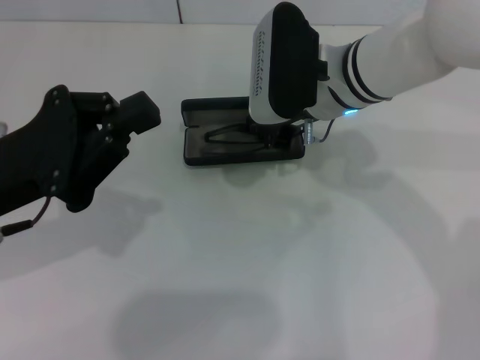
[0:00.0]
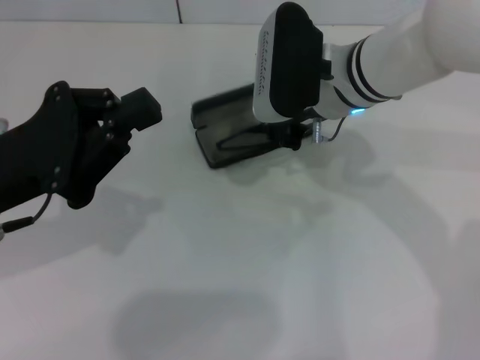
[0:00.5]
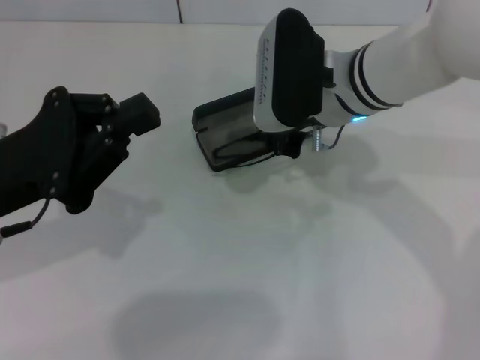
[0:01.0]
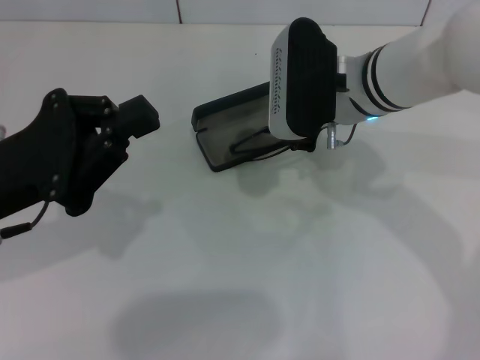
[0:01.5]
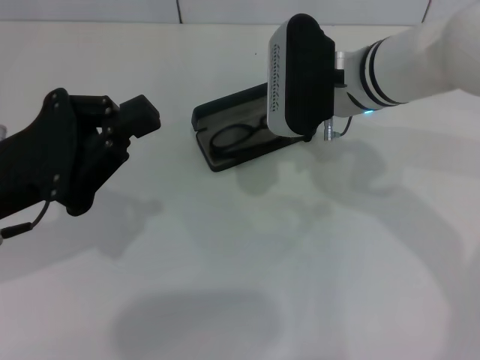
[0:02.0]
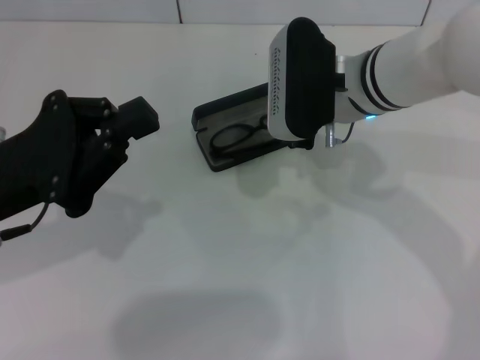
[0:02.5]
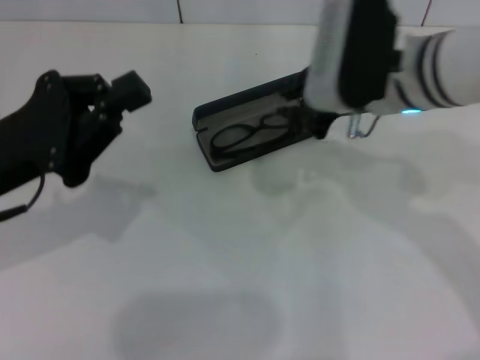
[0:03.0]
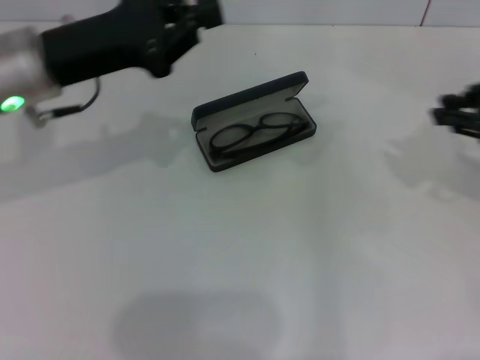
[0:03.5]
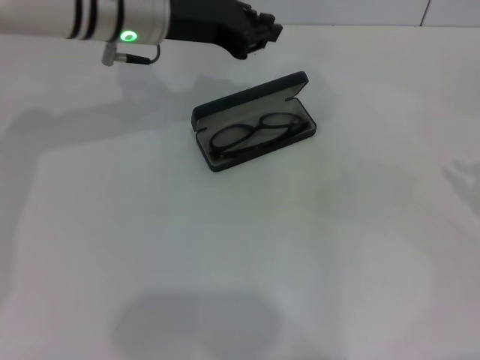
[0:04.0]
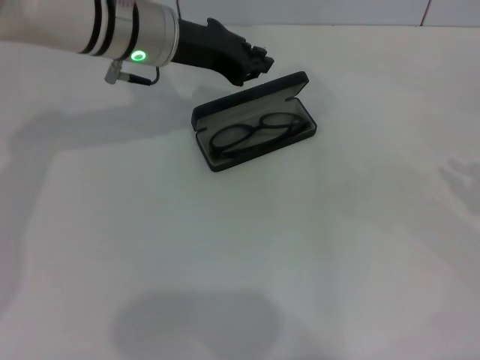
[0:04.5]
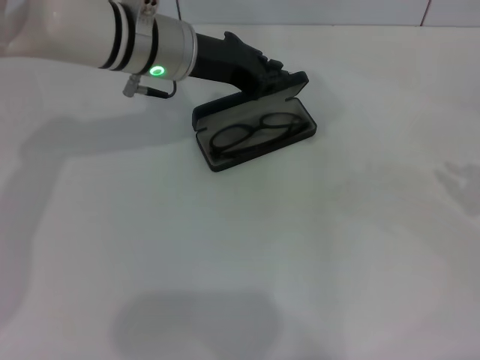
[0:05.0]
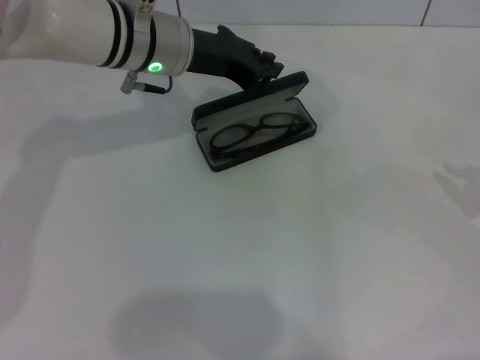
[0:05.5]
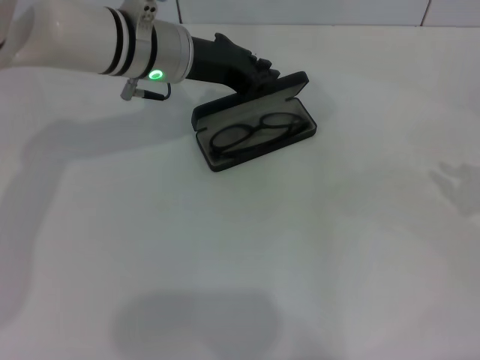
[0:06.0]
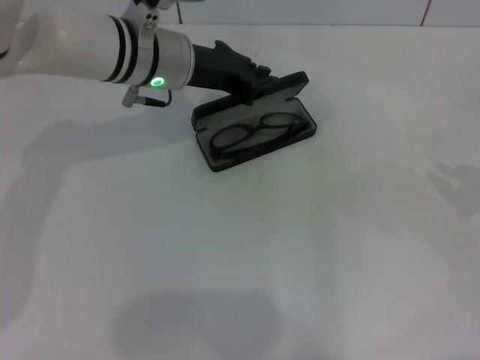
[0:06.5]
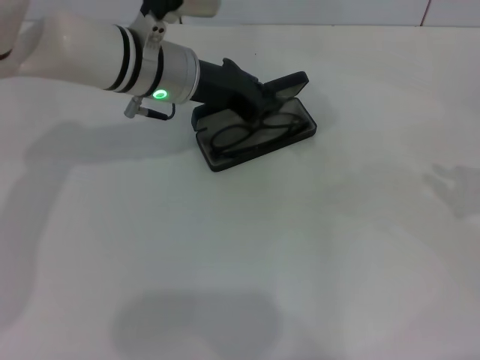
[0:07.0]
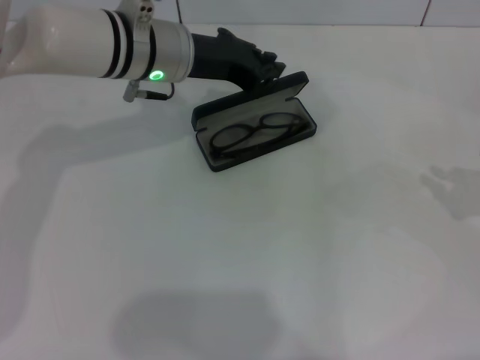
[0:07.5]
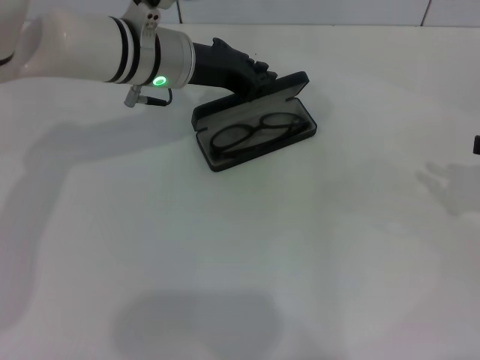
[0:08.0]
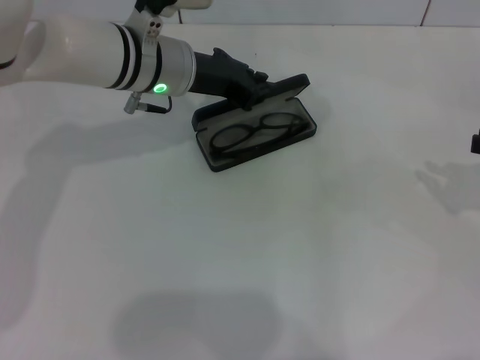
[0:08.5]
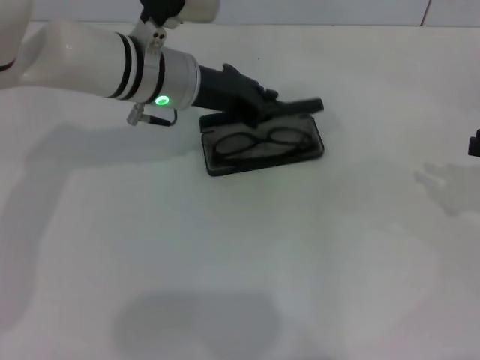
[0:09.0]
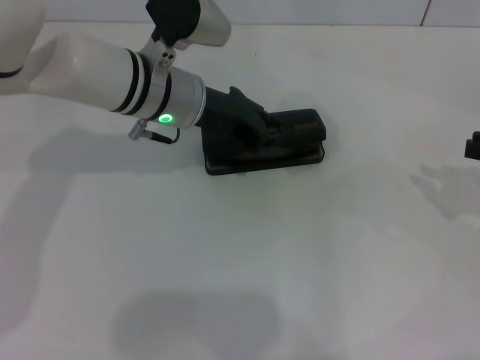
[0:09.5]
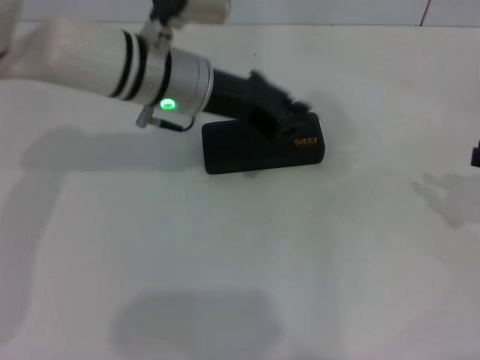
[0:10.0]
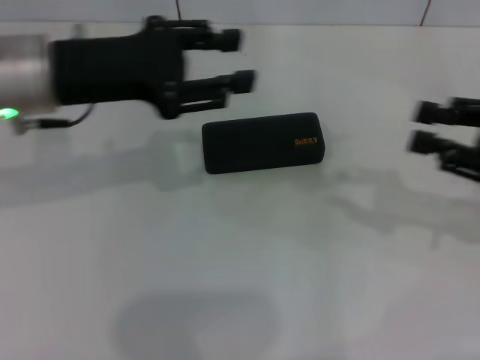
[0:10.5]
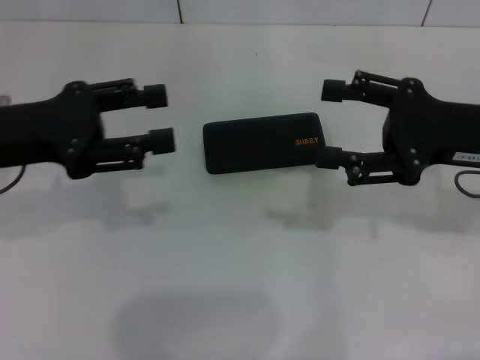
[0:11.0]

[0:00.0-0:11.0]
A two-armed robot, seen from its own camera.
Step, 0:00.0 to 0:02.0: Put the glasses into the case with your right hand.
Step, 0:02.5 to 0:09.5: Close the glasses case with your left hand.
0:00.0 to 0:02.0: The grippers move only a little.
0:02.0 to 0:03.5: The left gripper is displaced forward by some 10 cm, while the right gripper heads to the right, covering about 20 cm.
0:03.5 to 0:05.5: The left gripper is displaced to the right and forward by roughly 10 cm; the right gripper moves to the right, downward and backward, approximately 10 cm.
0:05.5 to 0:09.0: The grippers move only a little.
0:09.0 to 0:11.0: The left gripper shifts approximately 20 cm to the left and backward, and opens its fingers. The right gripper moves to the left, approximately 15 cm, and opens up.
